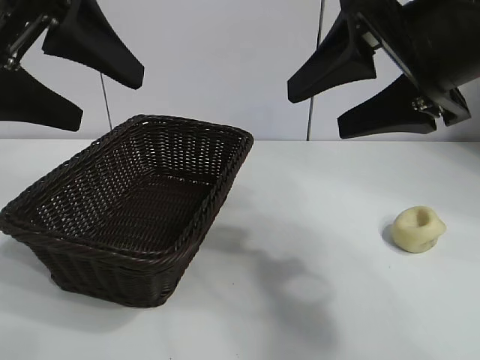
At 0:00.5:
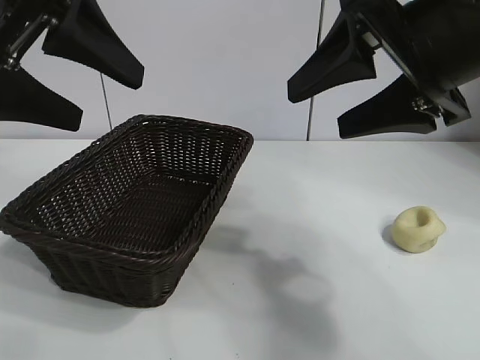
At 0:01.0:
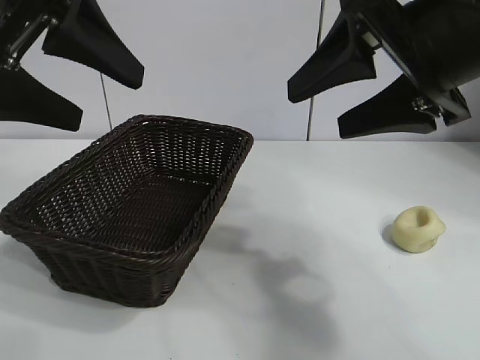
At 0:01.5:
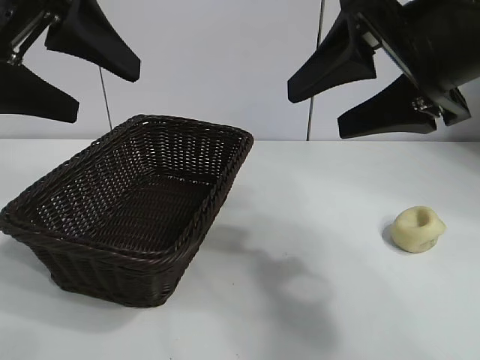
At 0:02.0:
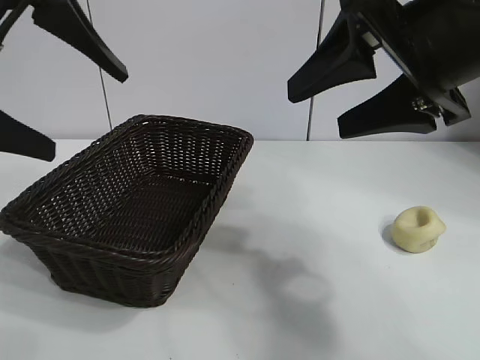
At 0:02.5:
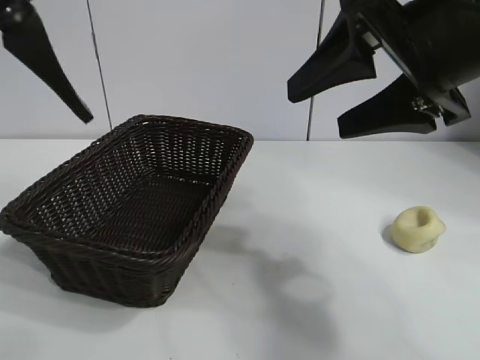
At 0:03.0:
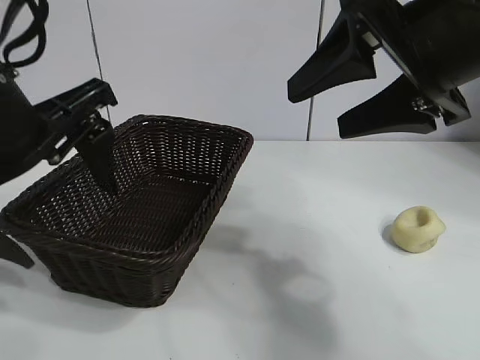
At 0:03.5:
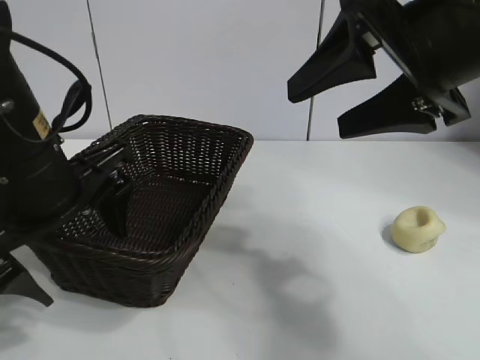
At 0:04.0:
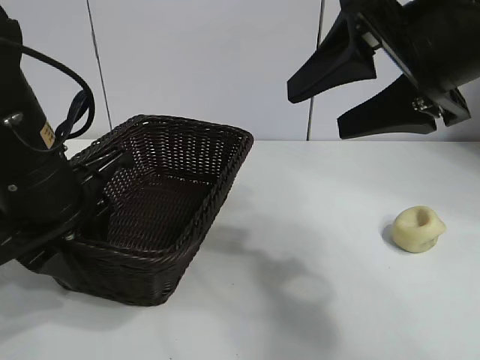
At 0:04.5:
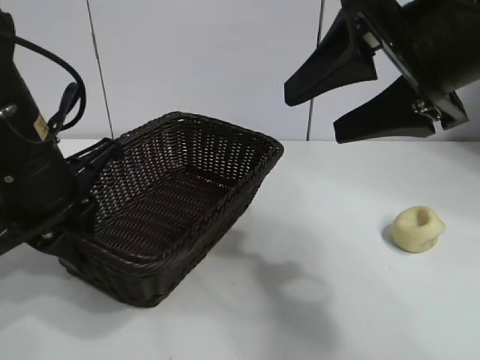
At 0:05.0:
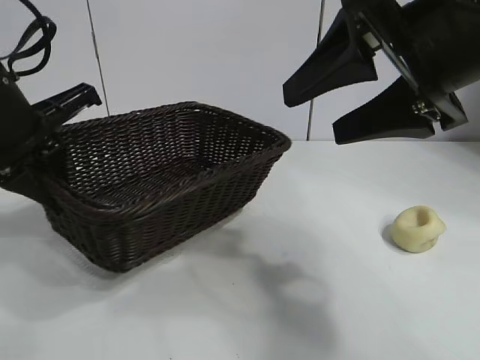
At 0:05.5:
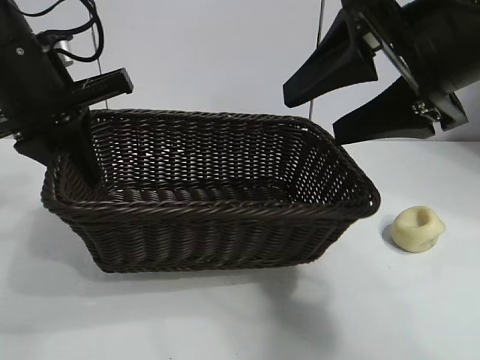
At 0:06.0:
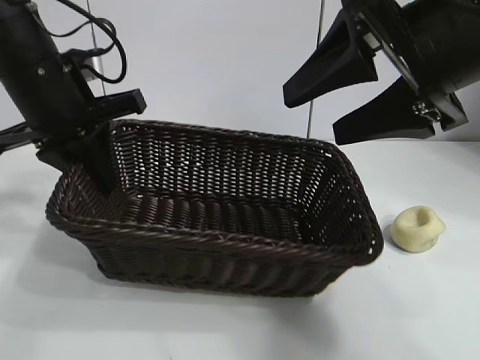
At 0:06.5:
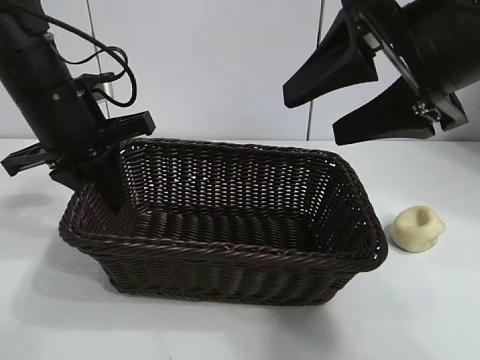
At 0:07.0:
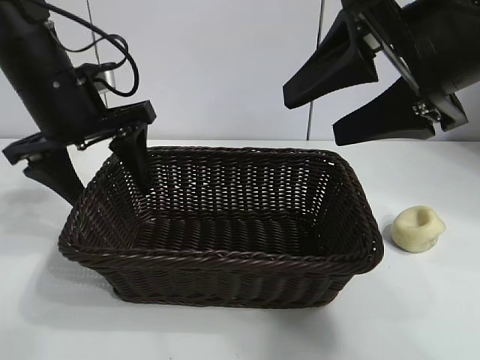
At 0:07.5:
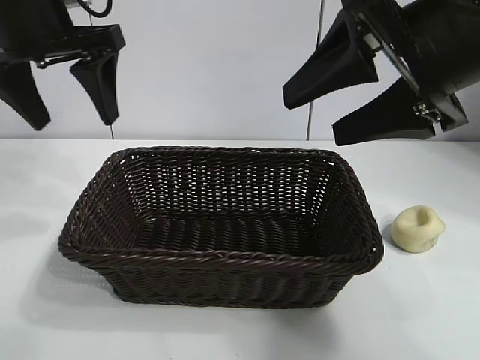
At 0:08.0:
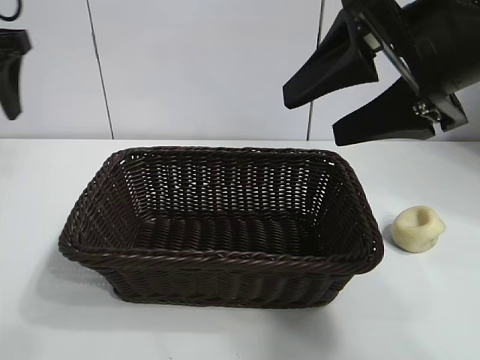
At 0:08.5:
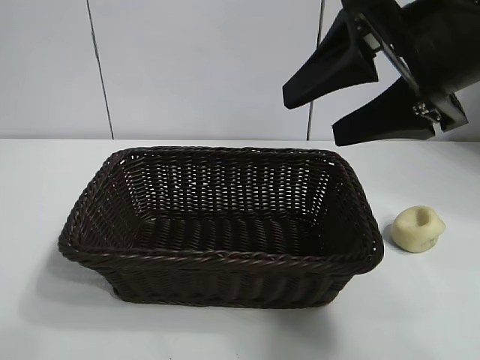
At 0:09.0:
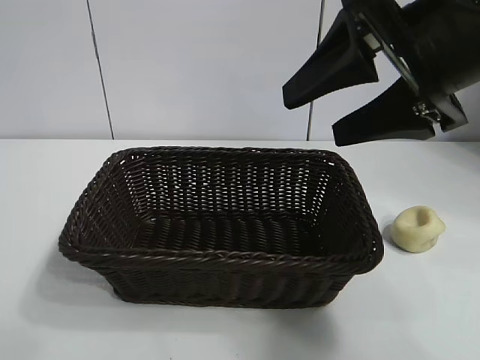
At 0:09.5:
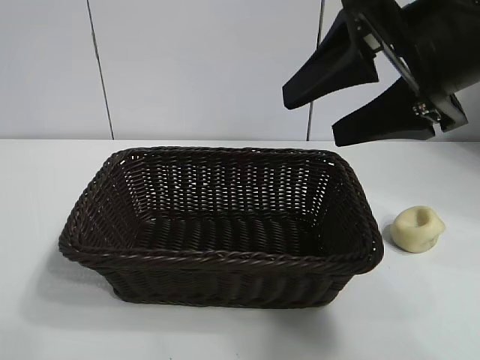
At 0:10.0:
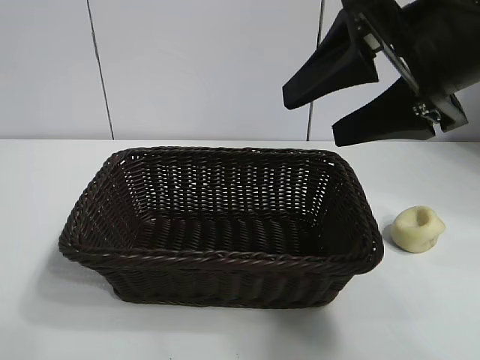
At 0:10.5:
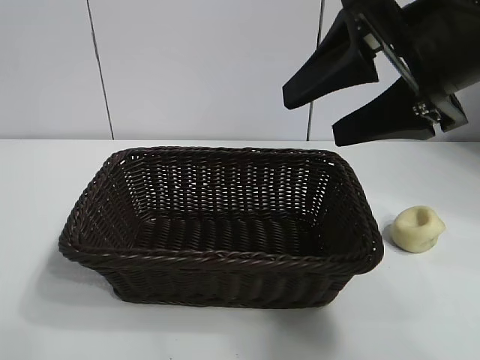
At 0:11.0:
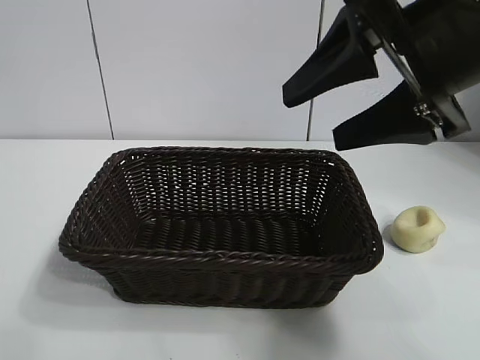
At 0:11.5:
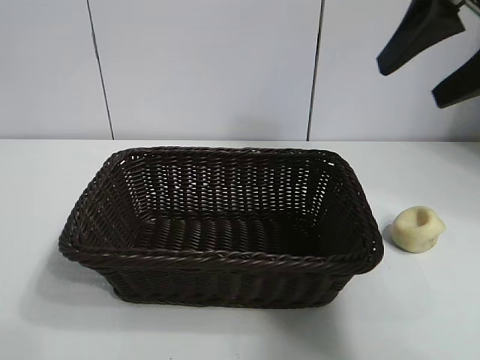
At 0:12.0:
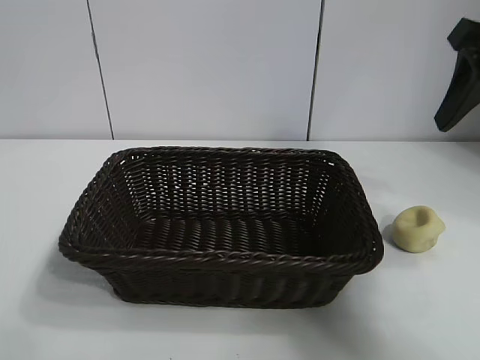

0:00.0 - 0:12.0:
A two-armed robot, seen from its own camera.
Task of the whole recording: pick up the egg yolk pastry and put it into the basket.
Step, 0:01.5 - 0:04.0: Grasp the basket with left gripper.
Step, 0:04.5 - 0:07.0: Place the basket in the center of view with left gripper.

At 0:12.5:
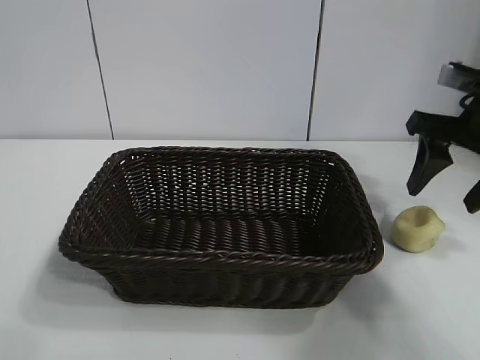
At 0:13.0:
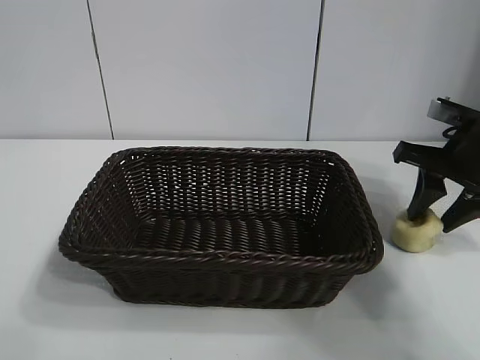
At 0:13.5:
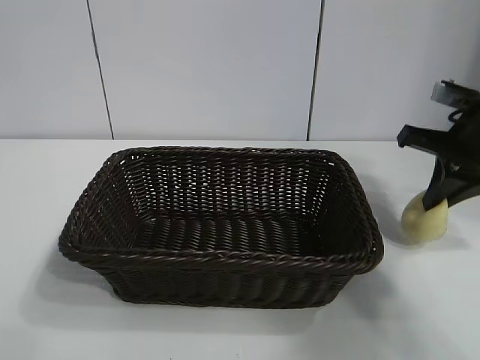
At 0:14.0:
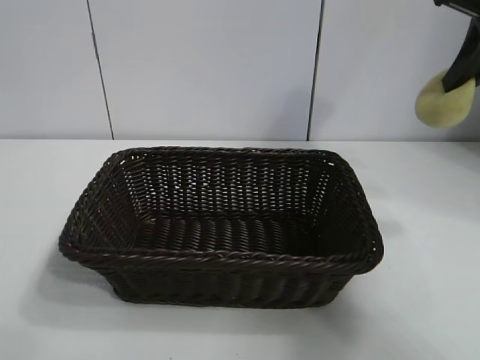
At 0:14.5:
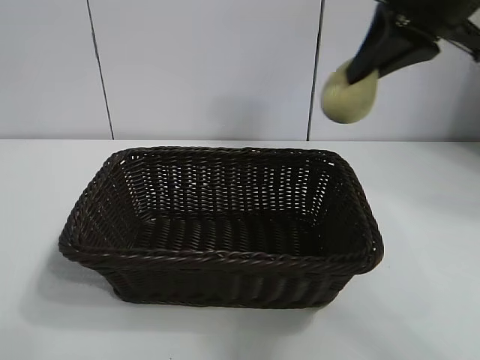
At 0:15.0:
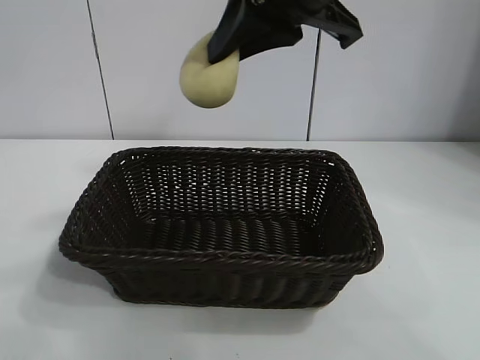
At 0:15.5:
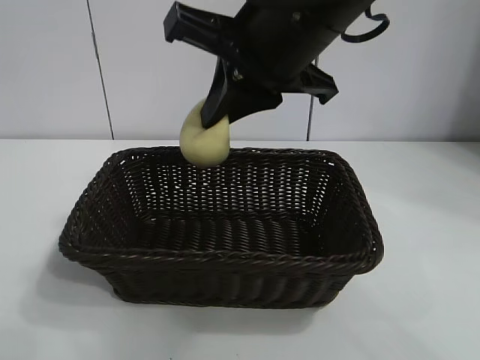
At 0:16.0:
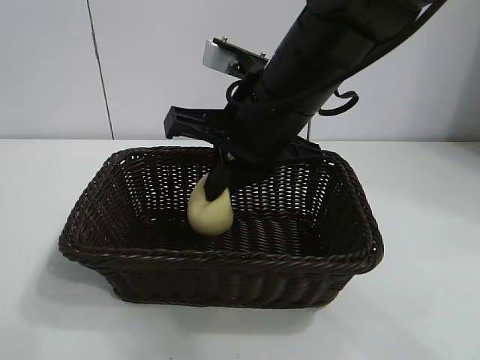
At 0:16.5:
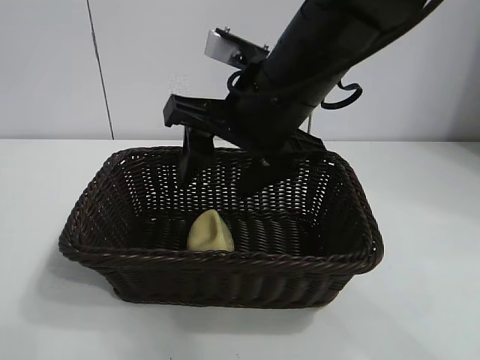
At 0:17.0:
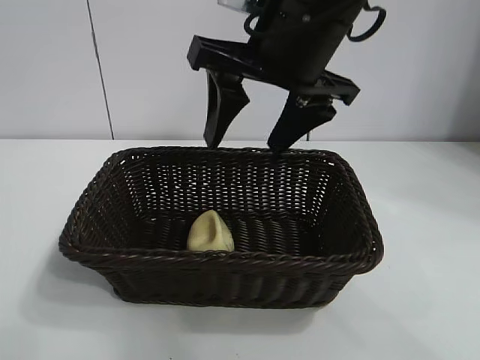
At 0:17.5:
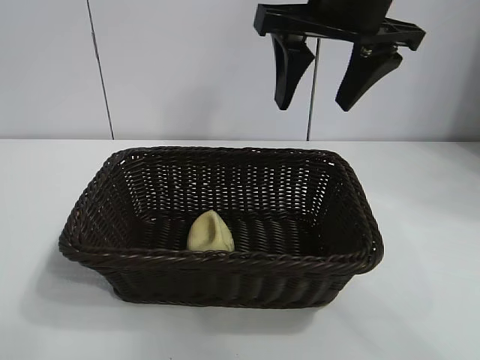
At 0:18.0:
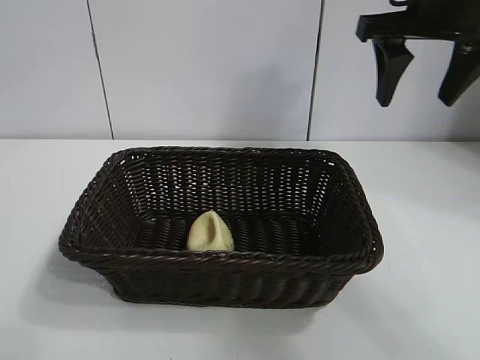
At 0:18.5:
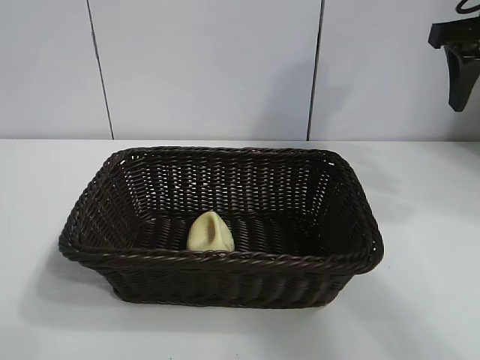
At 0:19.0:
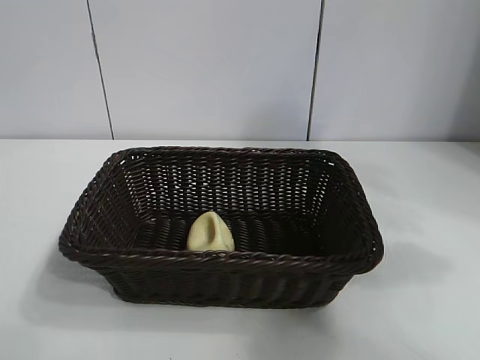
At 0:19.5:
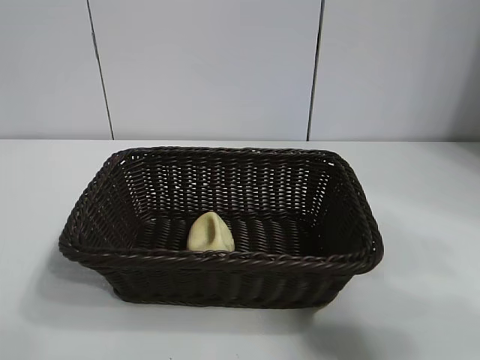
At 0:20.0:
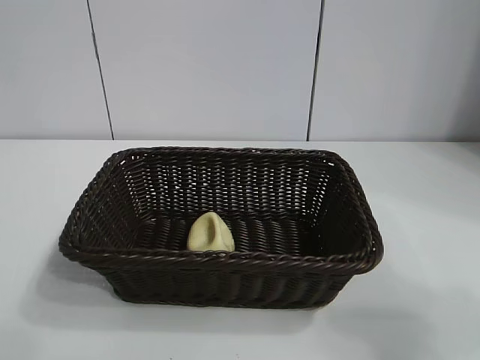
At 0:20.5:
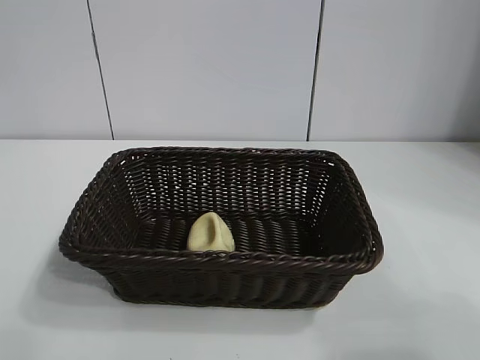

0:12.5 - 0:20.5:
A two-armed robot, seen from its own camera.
Task of the whole recording: pick up the egg yolk pastry and put it into the basket.
Step, 0:13.5 - 0:16.0: Place the egg yolk pastry in the basket with right gripper.
